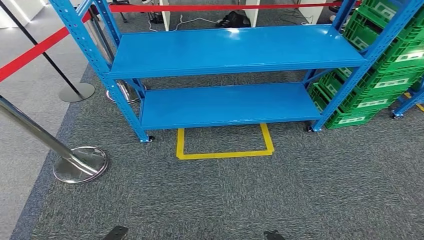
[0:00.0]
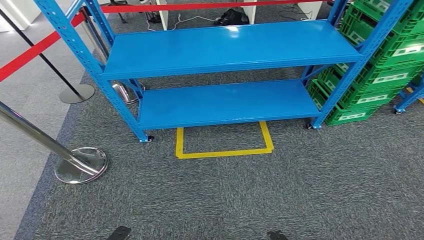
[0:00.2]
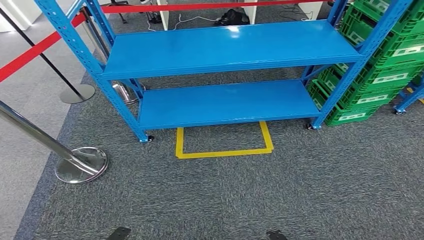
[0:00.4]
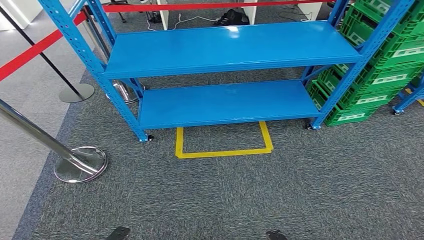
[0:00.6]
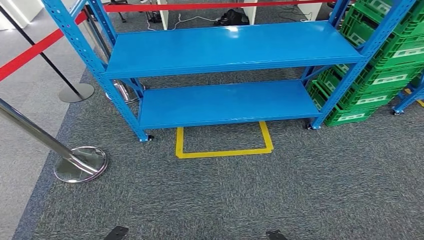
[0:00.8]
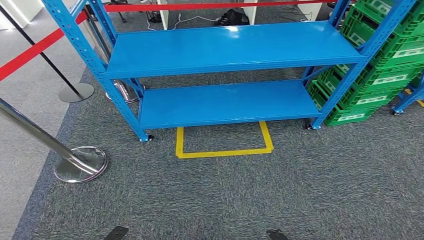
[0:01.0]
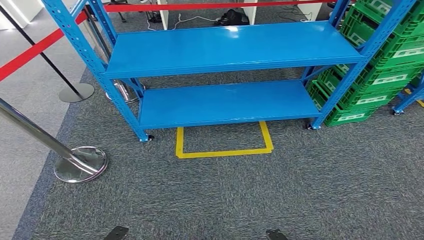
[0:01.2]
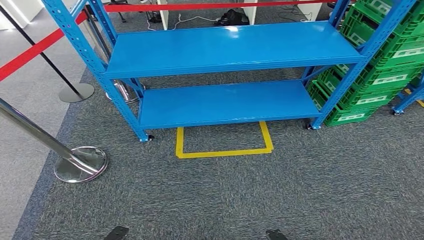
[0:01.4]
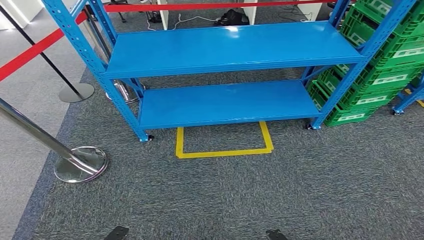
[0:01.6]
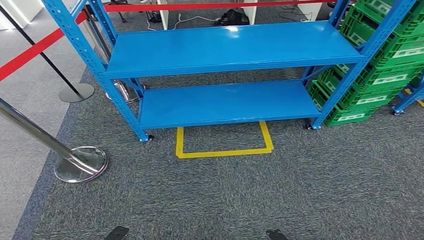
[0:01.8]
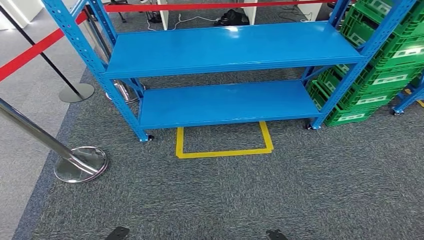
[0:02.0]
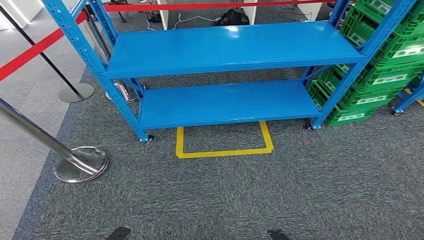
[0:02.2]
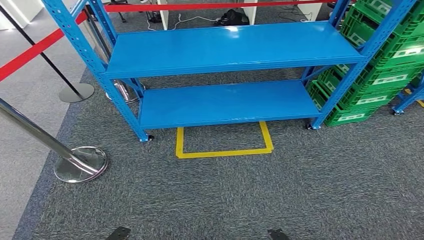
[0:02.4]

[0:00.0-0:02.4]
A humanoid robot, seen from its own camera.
Step, 0:00.0 to 0:02.4: Move to the initial position at the workbench.
0:00.0 to 0:02.4: The two hands keep their place.
